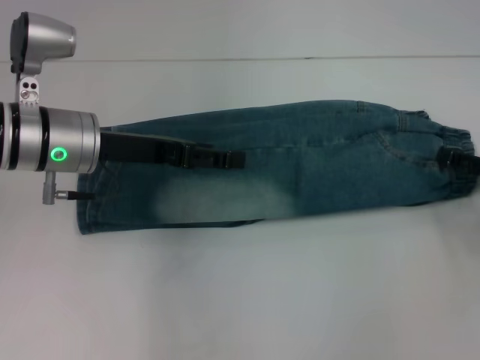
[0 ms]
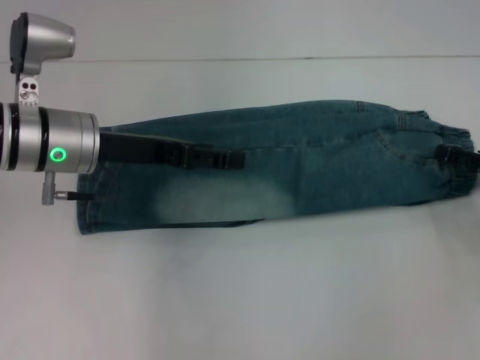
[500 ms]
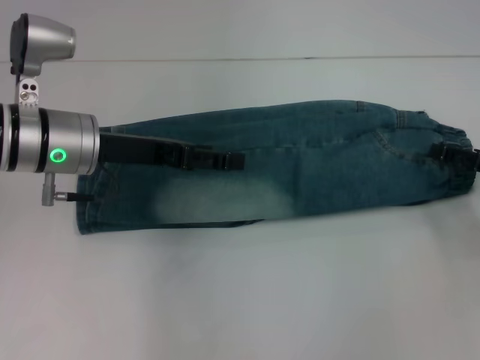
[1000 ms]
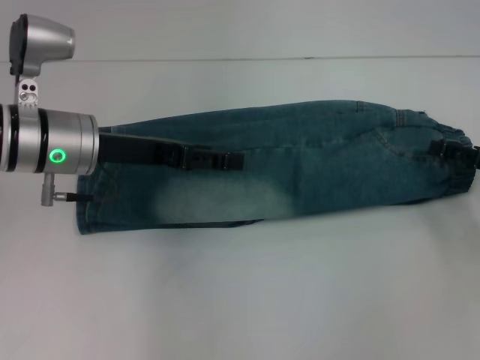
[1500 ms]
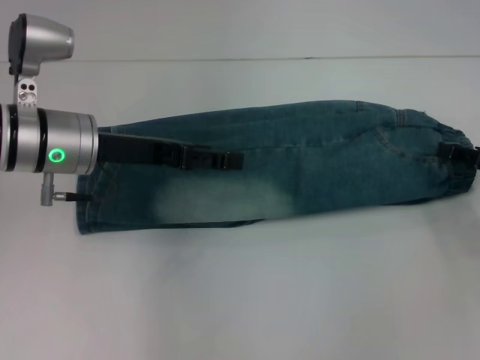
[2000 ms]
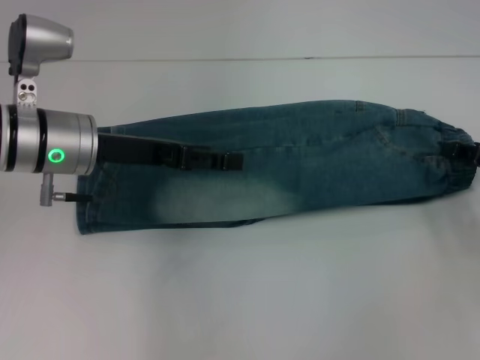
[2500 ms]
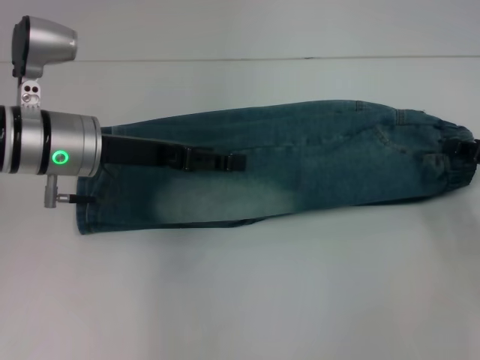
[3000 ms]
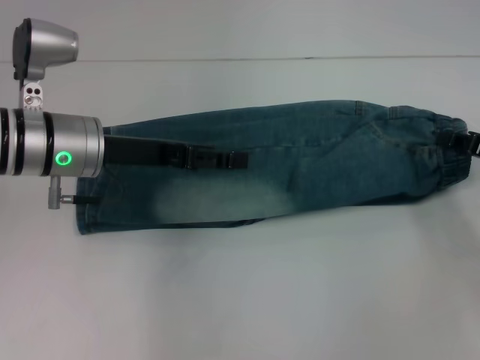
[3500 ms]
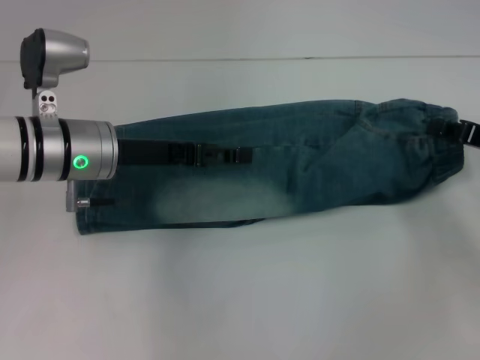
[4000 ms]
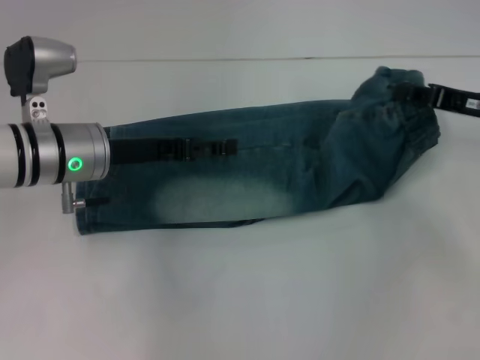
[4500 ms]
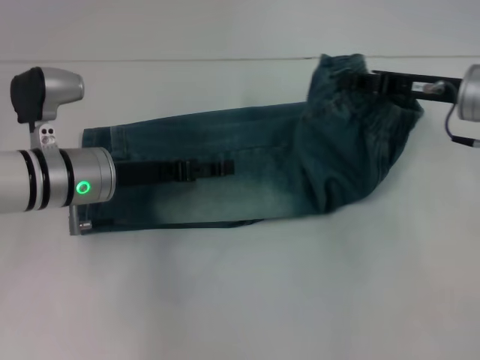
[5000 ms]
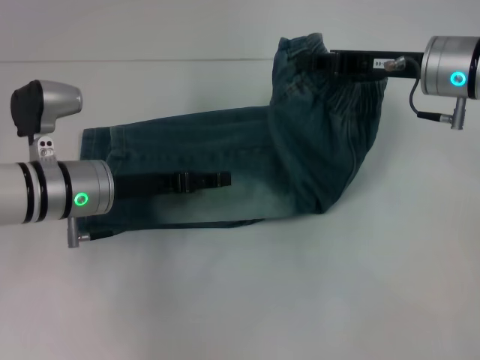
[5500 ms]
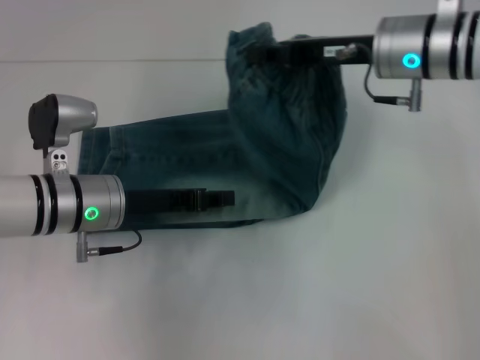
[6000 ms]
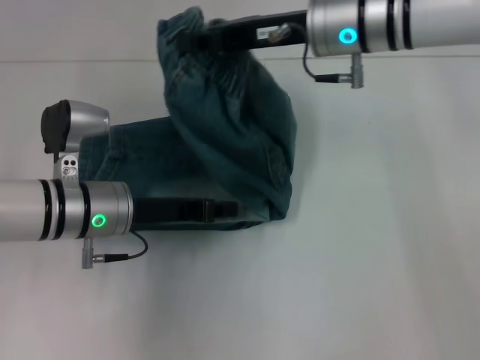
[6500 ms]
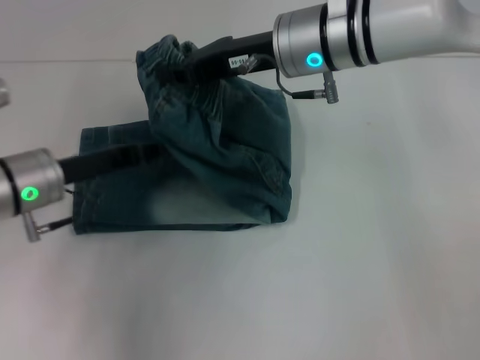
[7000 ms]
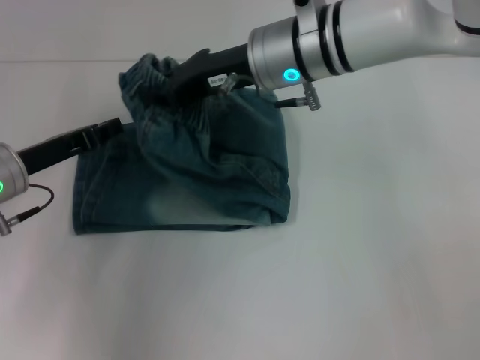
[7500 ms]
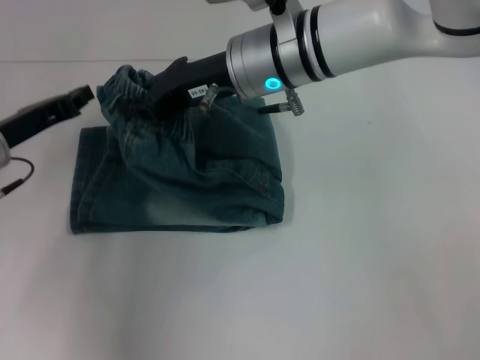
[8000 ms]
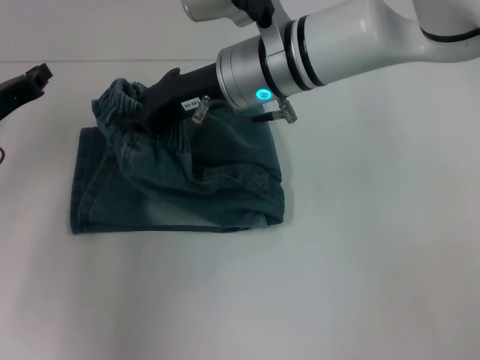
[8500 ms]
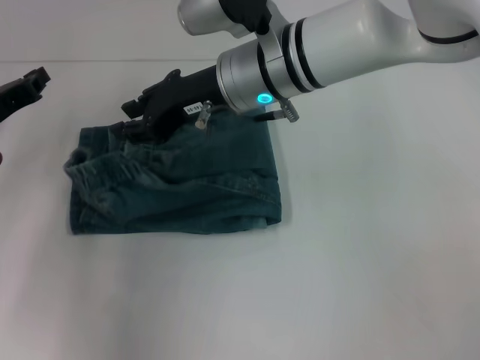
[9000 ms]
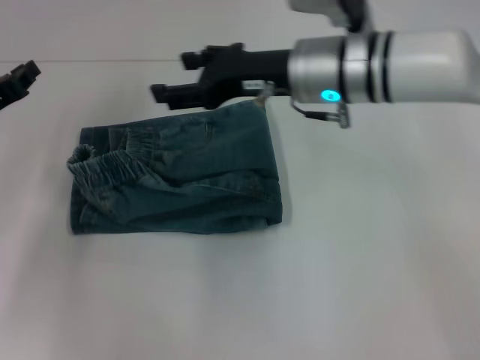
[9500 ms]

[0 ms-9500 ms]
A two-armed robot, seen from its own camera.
Step, 0 ms to 5000 ms: Press the middle of the pants with your left hand.
Step, 5500 ms to 9000 ms: Fold to the left with your right hand.
0 ms to 2000 ms: Neither gripper changes place.
2000 ms to 4000 ms: The right gripper closes its fingers.
4000 ms to 5500 ms: The right gripper shifts about 15 cm to the left, upward and forward.
5500 ms to 7500 ms: The left gripper travels to the left by approximately 5 cm, and closes, while the right gripper travels to the left by about 15 cm.
7500 ms to 9500 ms: The left gripper moves roughly 5 cm. Meanwhile the right gripper opens up.

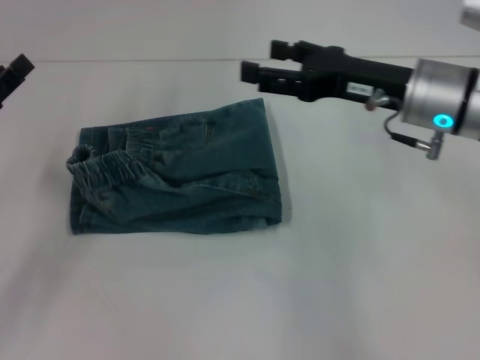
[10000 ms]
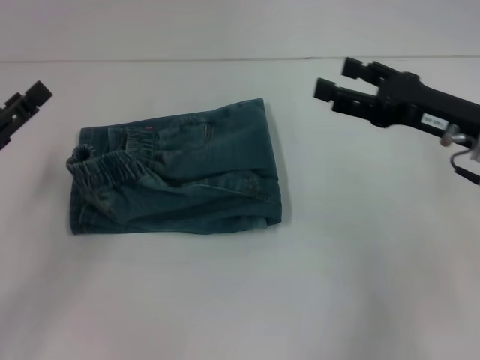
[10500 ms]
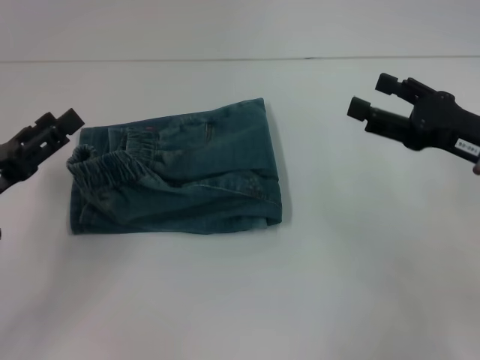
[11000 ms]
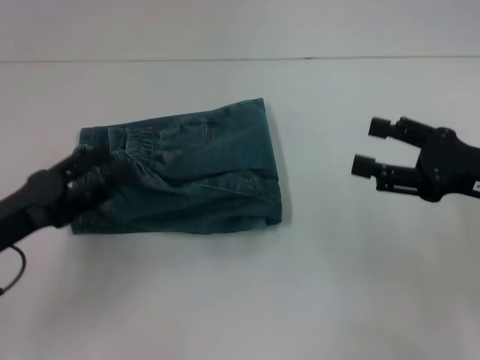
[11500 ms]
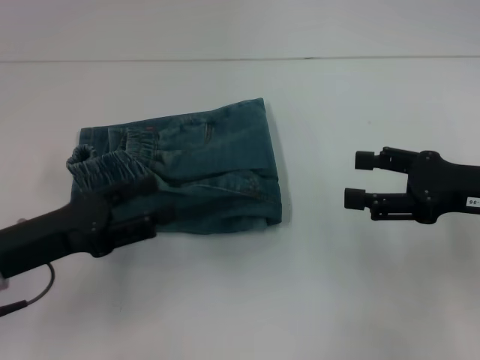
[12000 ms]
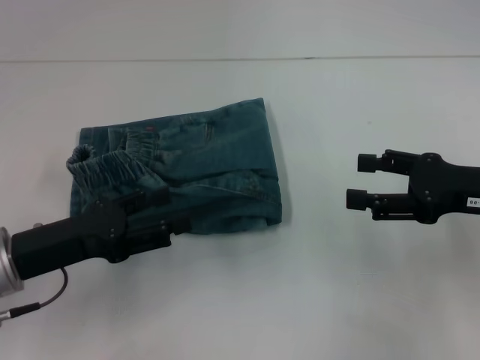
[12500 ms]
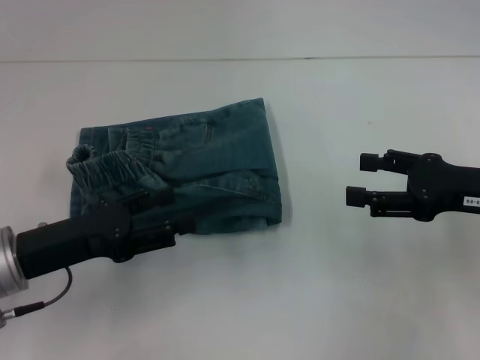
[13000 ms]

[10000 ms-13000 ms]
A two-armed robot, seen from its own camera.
10000 ms to 11500 ms: The left gripper moves backward, roughly 5 cm, and opens up. The right gripper travels to the right and backward by roughly 15 cm.
11500 ms to 13000 ms: The grippers stay close to where they were, moving slightly.

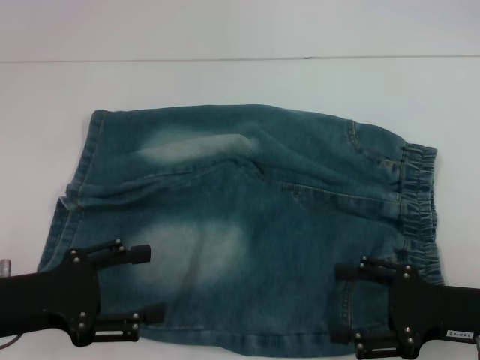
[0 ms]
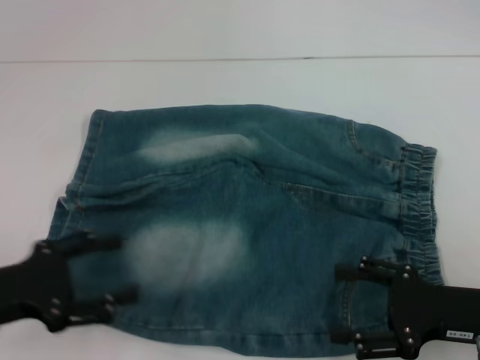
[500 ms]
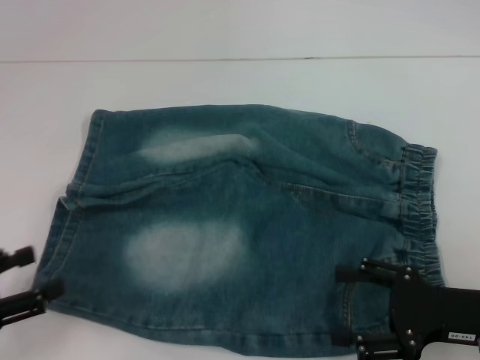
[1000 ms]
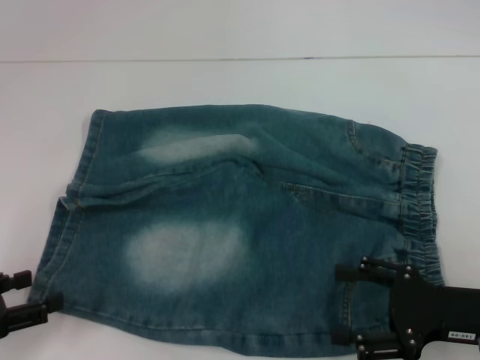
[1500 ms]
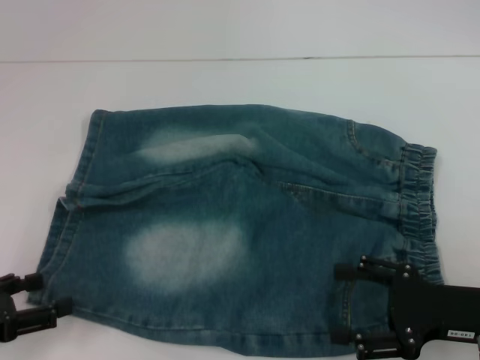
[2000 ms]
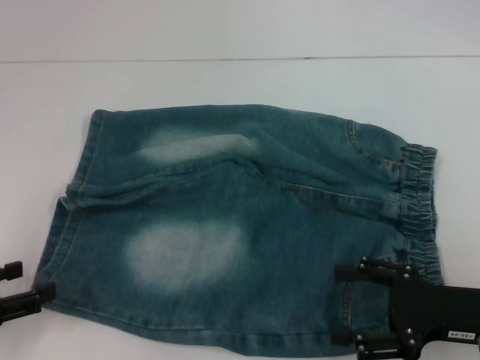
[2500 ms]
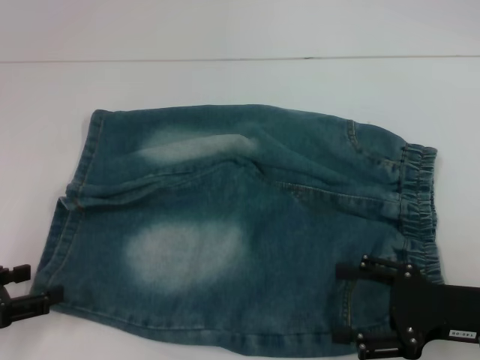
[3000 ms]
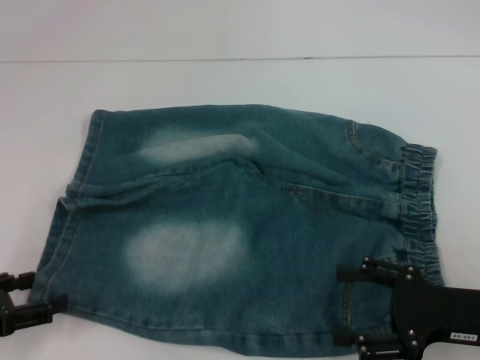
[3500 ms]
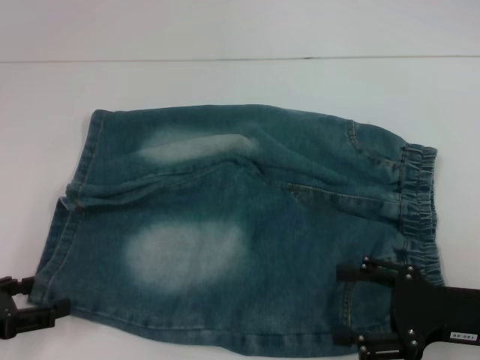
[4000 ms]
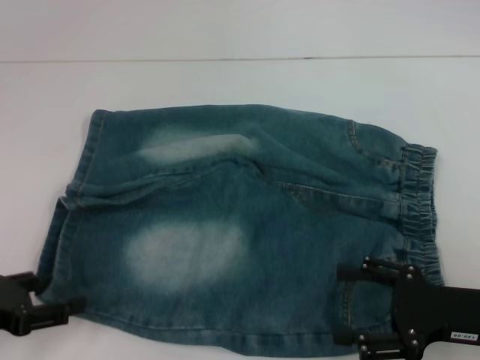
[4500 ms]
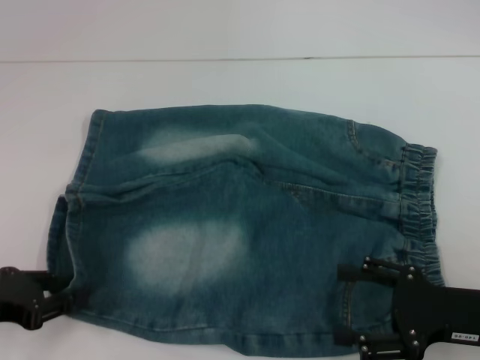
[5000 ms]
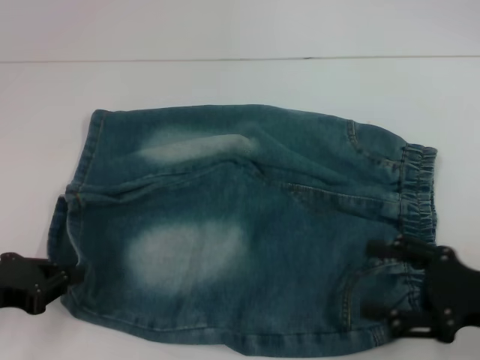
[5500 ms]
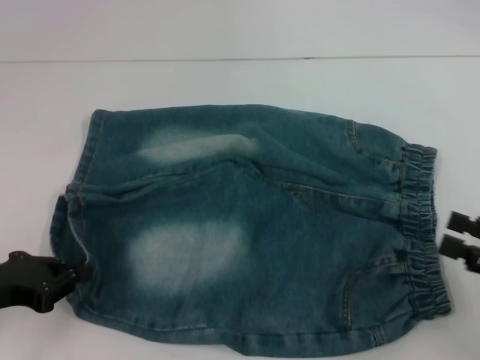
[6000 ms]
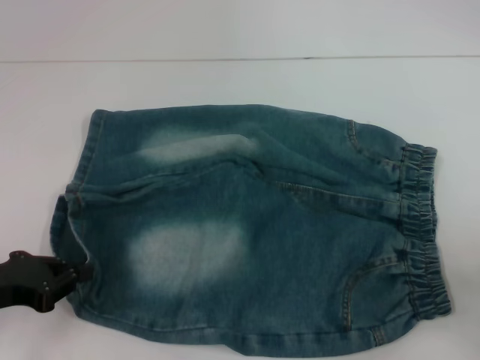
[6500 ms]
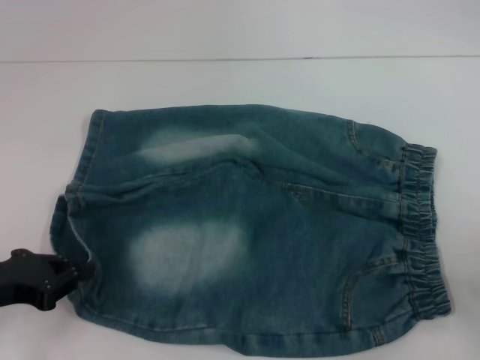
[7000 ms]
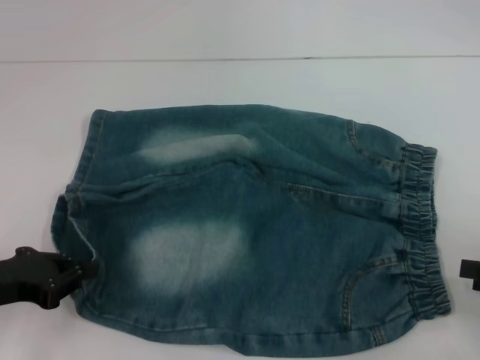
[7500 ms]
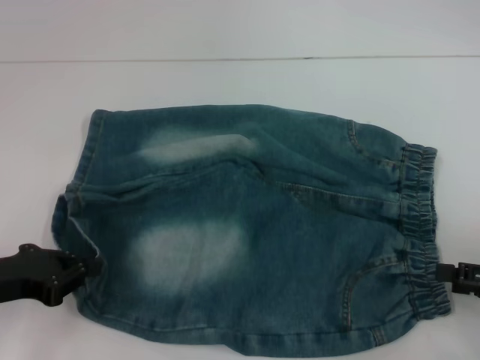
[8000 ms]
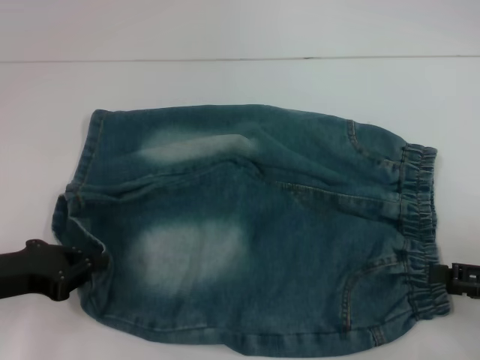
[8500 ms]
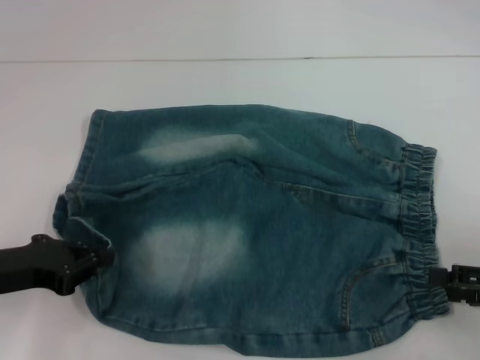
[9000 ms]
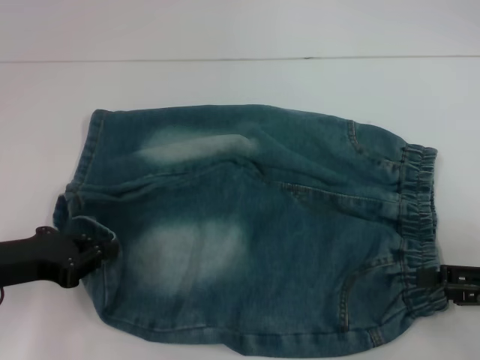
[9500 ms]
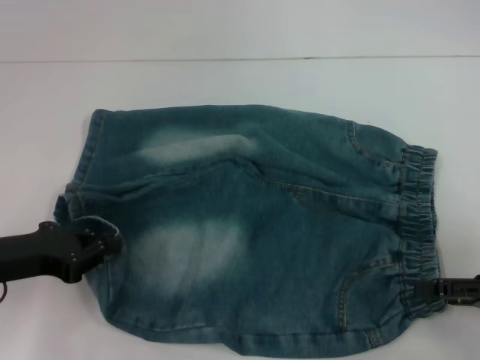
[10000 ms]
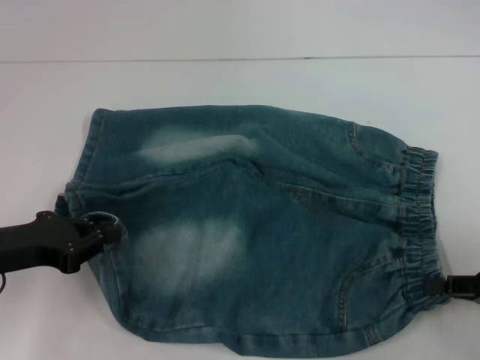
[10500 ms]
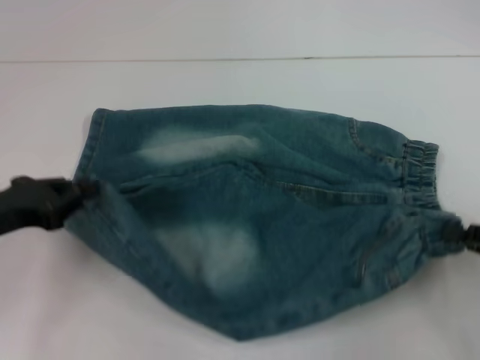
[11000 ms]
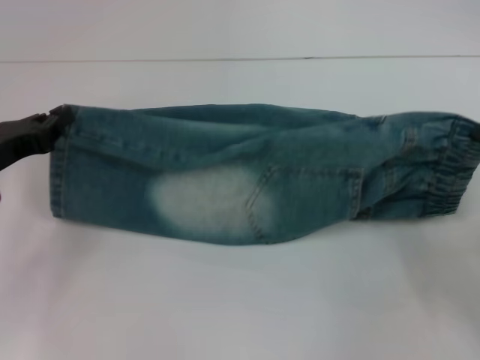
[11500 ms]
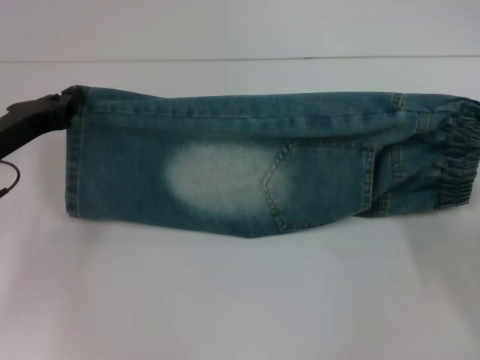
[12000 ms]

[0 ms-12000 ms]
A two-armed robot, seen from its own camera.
Step, 0 ms to 5000 ms: Grab the lower left pant leg with your left hand.
Step, 5500 ms to 10000 ms: Hold the lower right waistband with your right hand.
0 ms to 2000 ms: The left gripper travels to the left by approximately 5 cm.
2000 ms to 4000 ms: The grippers stay close to where they were, moving slightly.
4000 ms to 6000 ms: The right gripper is displaced to the right by roughly 10 cm. Meanwhile the left gripper closes.
8000 ms to 10000 ms: The grippers make only small movements.
10000 ms to 12000 ms: The right gripper closes its fingers. Meanwhile the left gripper moves forward, about 10 cm.

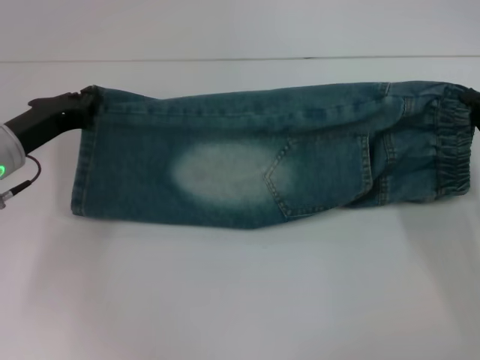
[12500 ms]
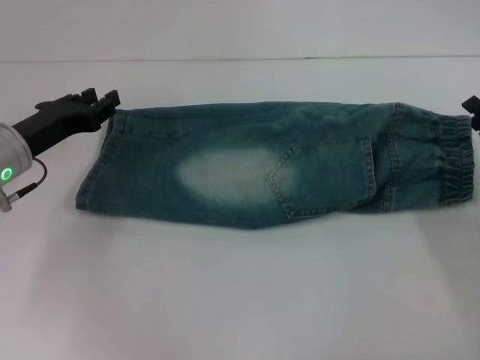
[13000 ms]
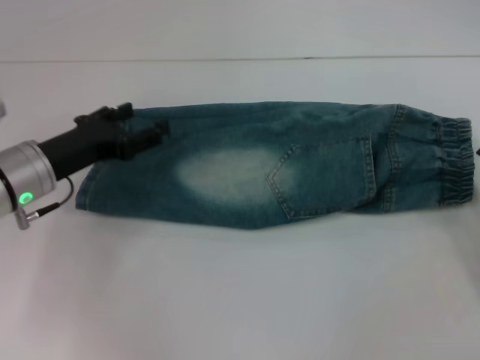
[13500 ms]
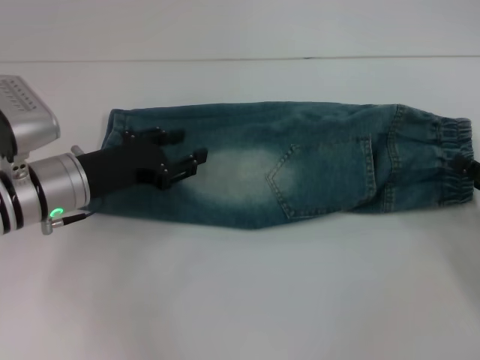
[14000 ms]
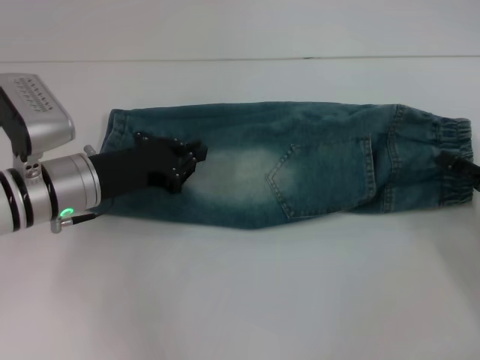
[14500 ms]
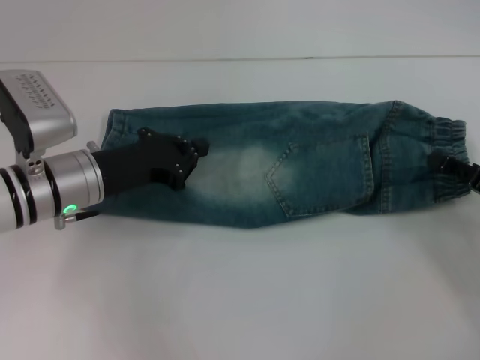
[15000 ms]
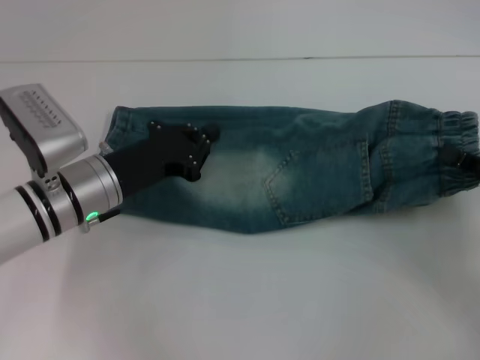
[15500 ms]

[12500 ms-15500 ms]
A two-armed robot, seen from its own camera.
Step, 13500 ms to 15000 ms: Grab the waistband with your right hand.
12500 ms to 14000 ms: The right gripper moves backward, some 5 cm, and opens up. The left gripper shifts some 5 cm to the right, and opens up.
14000 ms to 15500 ms: The left gripper closes its fingers. Meanwhile the right gripper closes up.
